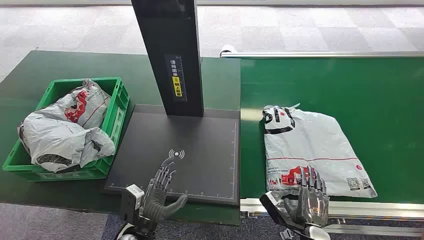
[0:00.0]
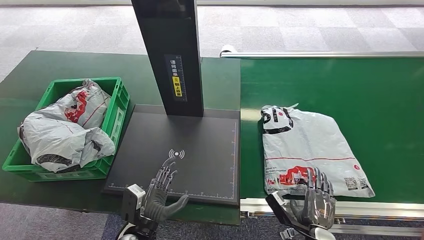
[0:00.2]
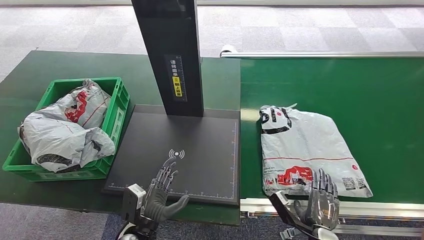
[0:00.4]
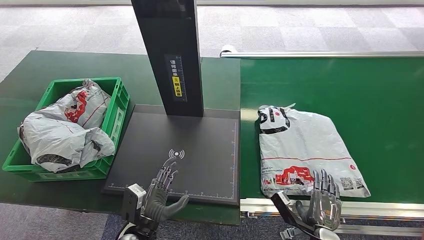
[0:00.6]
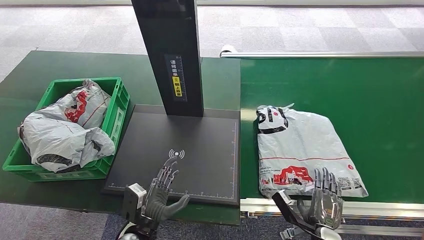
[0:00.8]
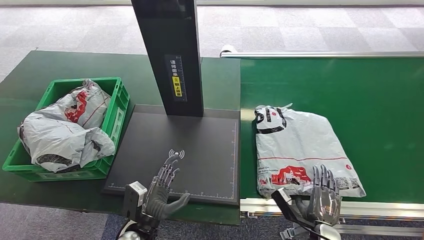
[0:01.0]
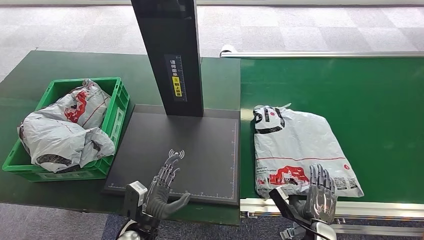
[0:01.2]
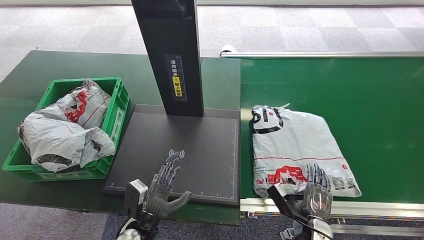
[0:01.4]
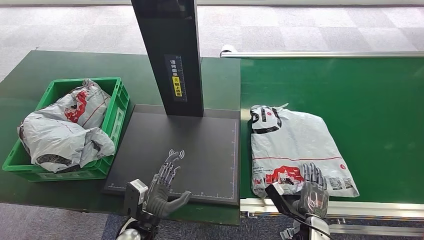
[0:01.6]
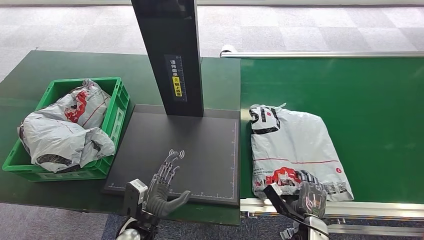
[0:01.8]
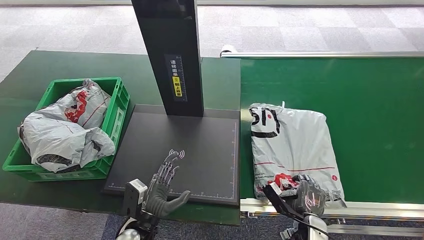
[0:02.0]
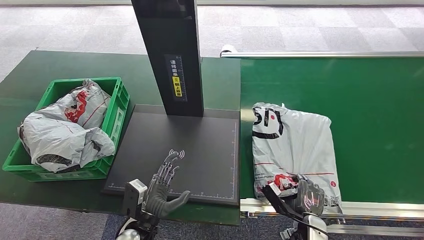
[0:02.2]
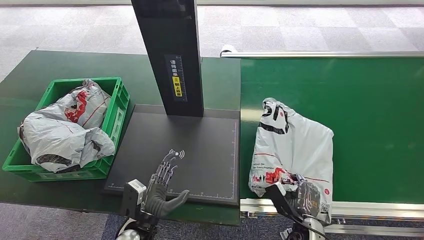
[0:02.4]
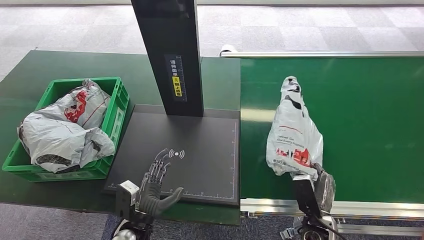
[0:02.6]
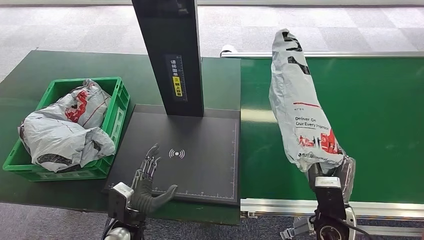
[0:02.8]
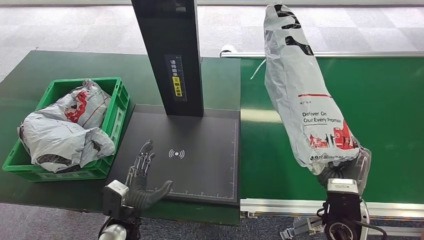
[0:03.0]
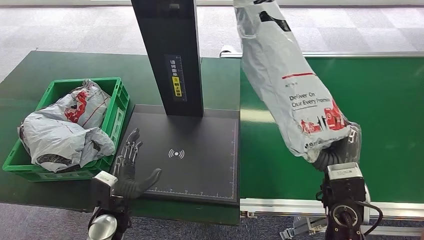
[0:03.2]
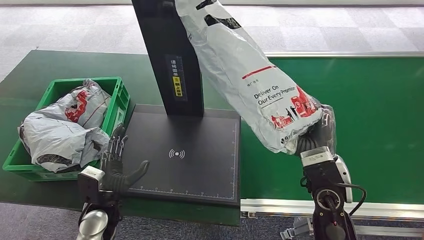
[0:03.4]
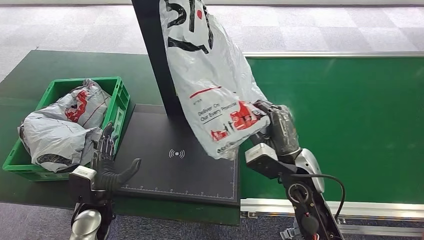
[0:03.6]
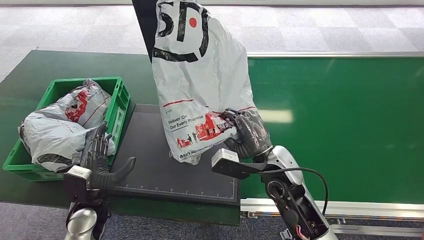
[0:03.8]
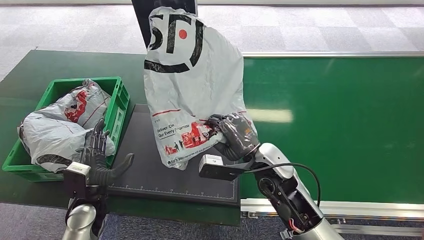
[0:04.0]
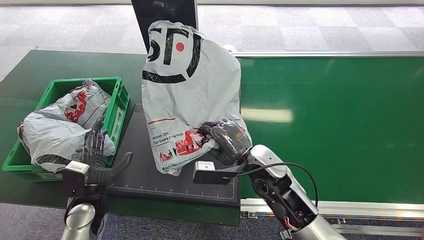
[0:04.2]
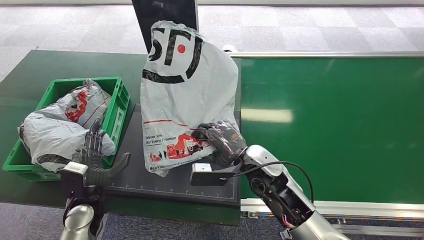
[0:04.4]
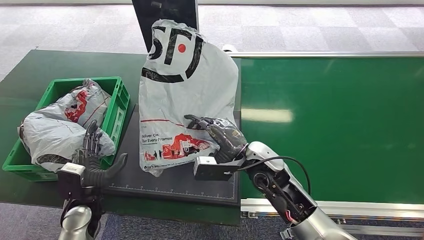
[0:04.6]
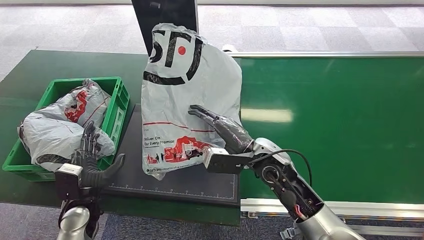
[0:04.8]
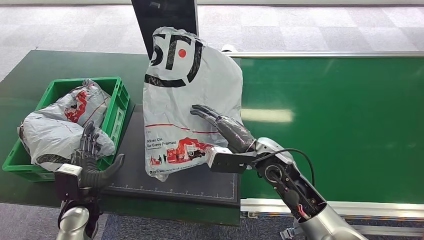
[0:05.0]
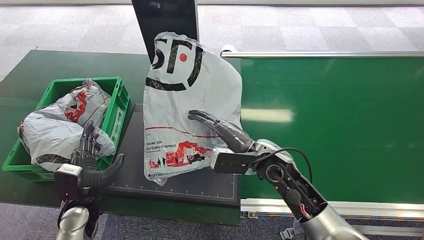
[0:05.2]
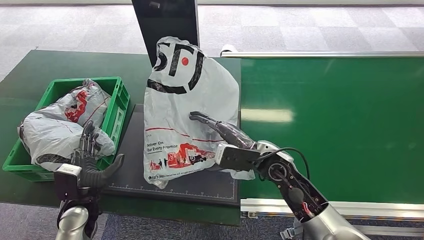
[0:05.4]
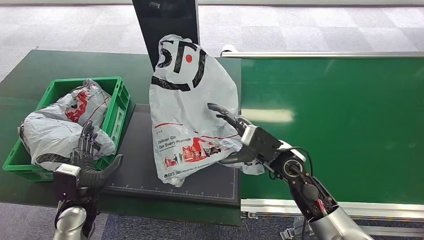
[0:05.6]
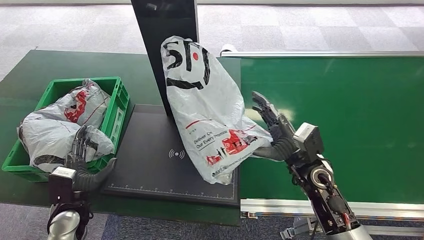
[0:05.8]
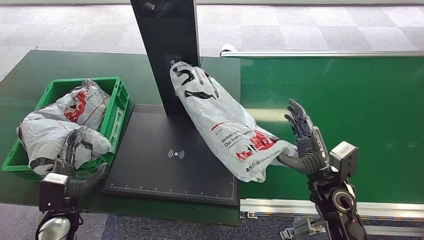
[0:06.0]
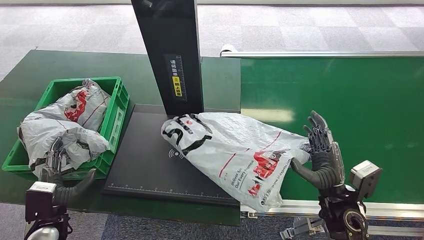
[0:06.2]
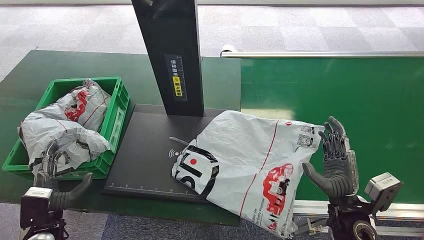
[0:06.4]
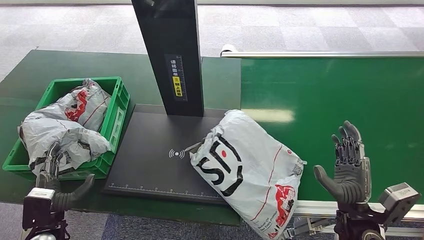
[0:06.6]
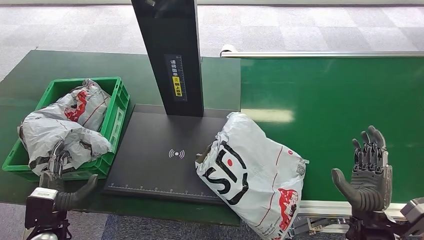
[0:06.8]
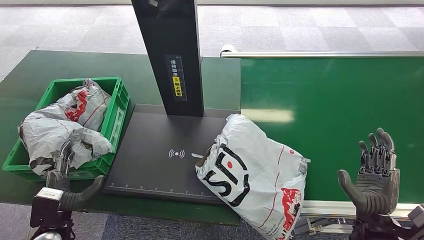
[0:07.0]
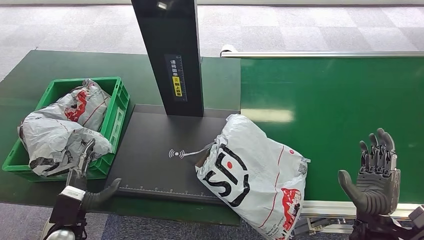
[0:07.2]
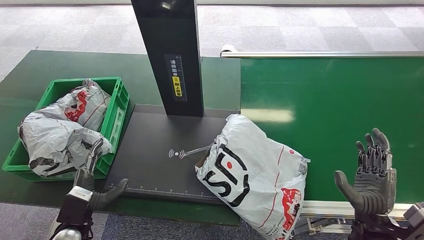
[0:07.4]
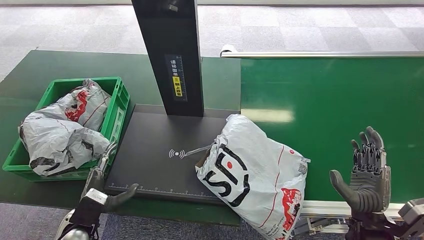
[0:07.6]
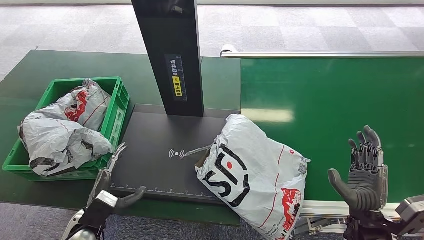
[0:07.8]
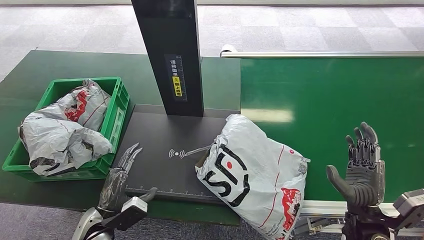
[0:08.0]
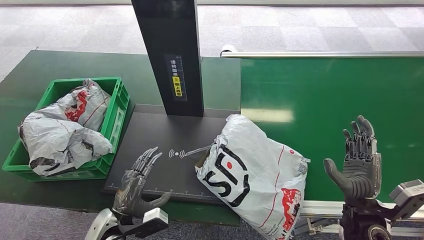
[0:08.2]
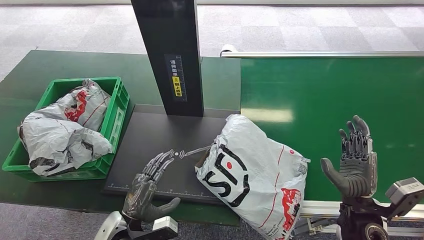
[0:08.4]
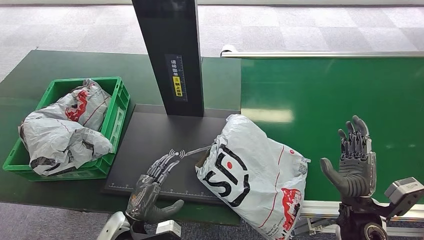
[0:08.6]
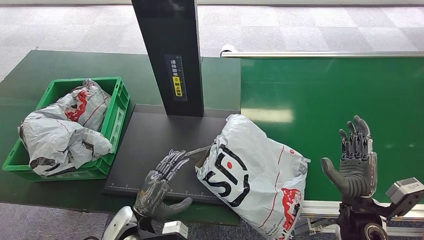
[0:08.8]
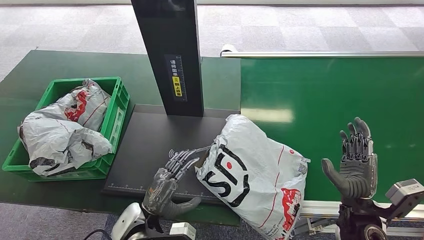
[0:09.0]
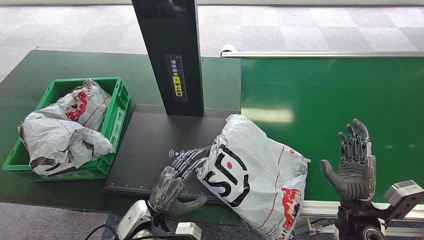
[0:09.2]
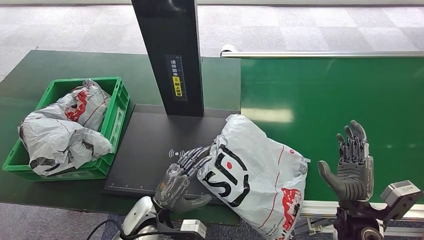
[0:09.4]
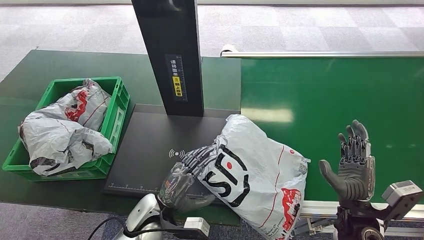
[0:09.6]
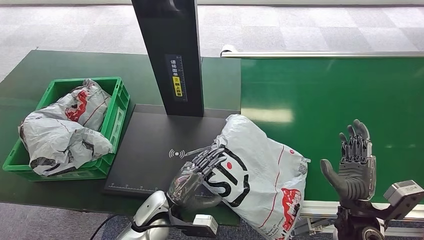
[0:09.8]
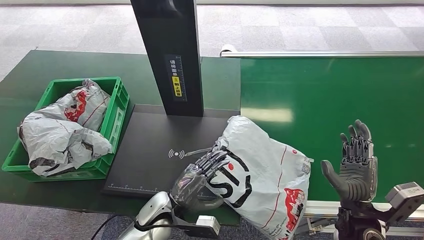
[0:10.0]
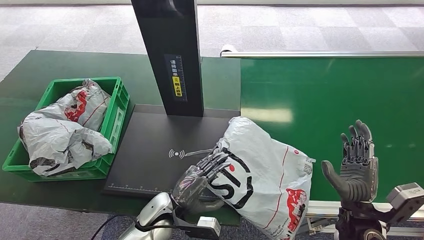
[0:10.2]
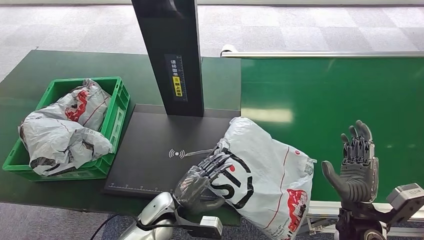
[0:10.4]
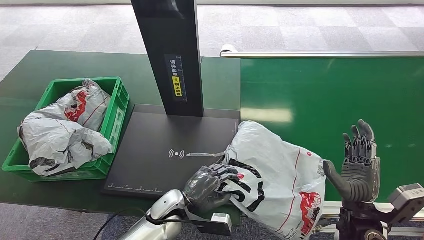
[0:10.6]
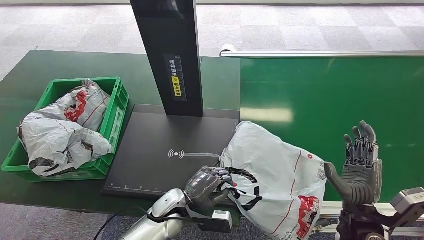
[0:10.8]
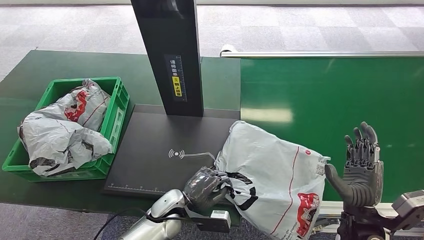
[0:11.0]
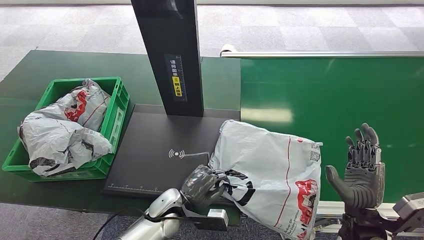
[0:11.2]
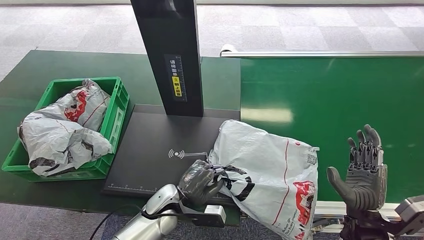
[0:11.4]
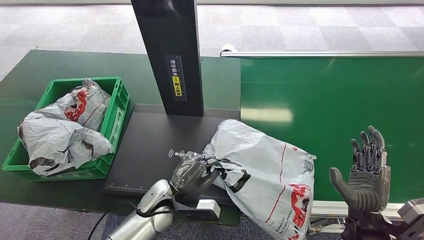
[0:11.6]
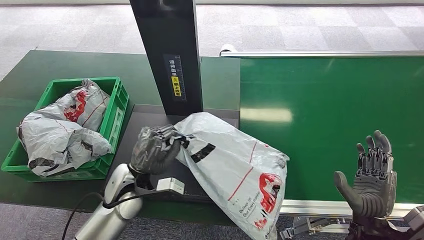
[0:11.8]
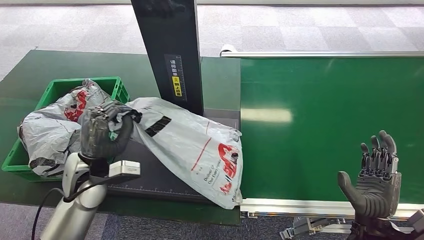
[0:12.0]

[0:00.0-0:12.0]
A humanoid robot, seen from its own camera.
Step, 0:00.0 to 0:03.2: Pick up the package from the conveyor belt.
Step, 0:03.4 to 0:07.2: Place the package onto the inbound machine.
0:01.6 to 0:03.0: The right hand goes roughly 20 cm upward.
0:07.6 to 0:09.0: The left hand travels to the right by some 15 cm.
0:09.0 to 0:10.4: The left hand goes some 5 cm to the right.

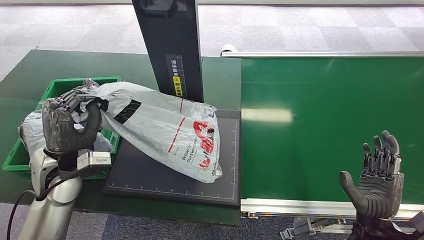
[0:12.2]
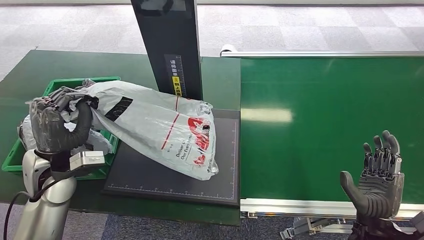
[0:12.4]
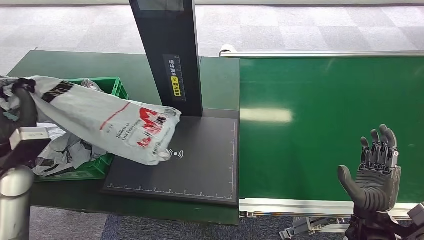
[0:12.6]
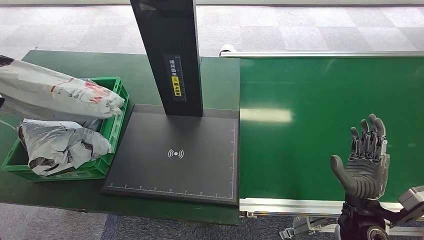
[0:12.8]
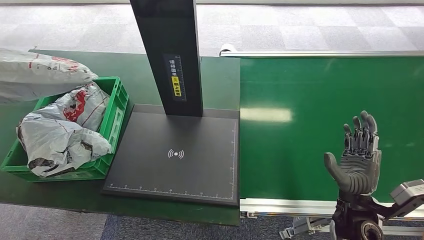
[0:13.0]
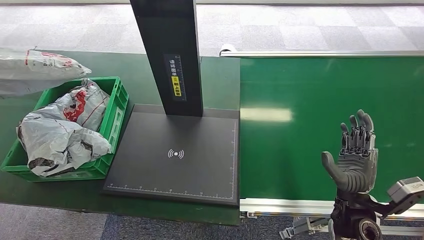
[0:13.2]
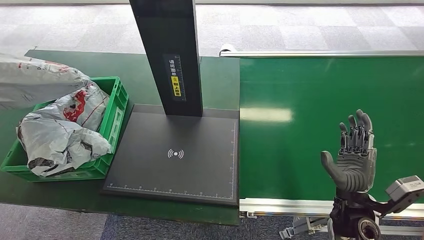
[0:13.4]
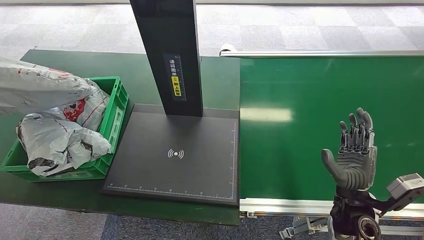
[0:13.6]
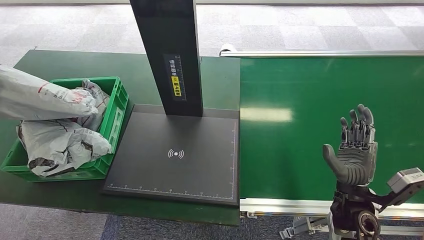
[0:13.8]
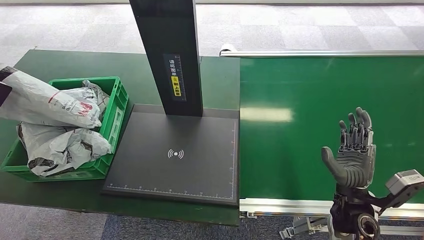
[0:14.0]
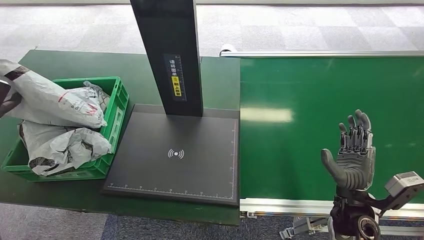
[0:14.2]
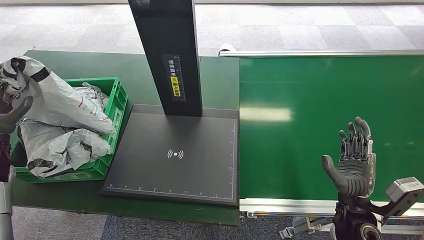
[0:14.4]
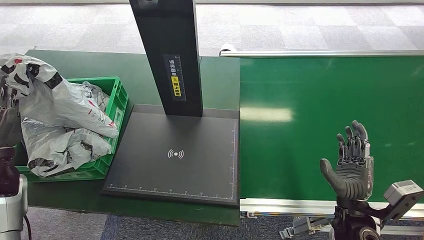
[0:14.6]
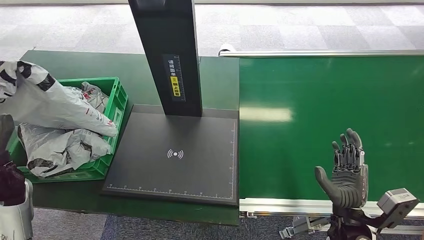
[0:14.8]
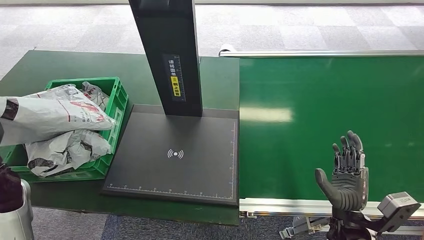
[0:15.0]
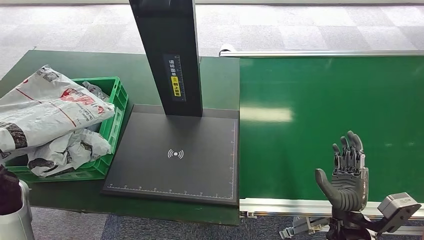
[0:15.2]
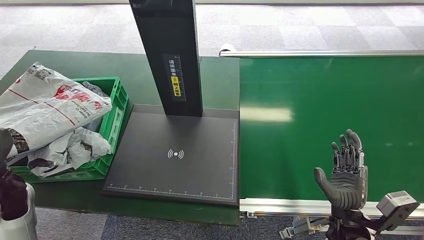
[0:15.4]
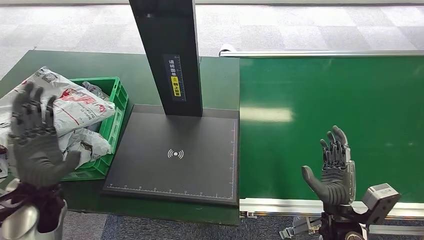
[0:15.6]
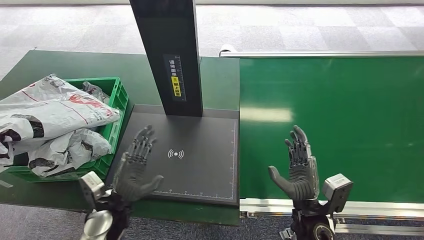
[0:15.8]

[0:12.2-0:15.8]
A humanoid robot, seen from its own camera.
Step, 0:12.6 to 0:15.8: Place the package into the parcel locker.
0:14.0 to 0:15.8: The left hand heads to the right and downward, covering roughly 35 cm. The right hand heads to the left, covering roughly 10 cm.
